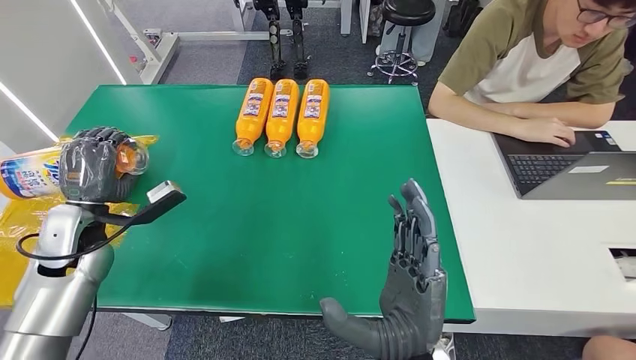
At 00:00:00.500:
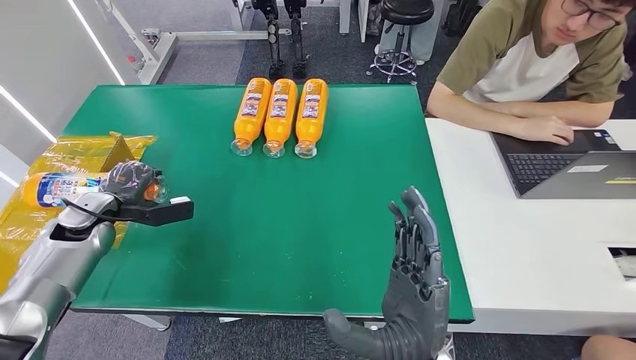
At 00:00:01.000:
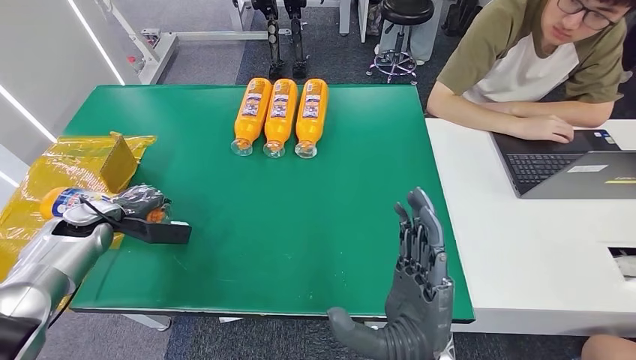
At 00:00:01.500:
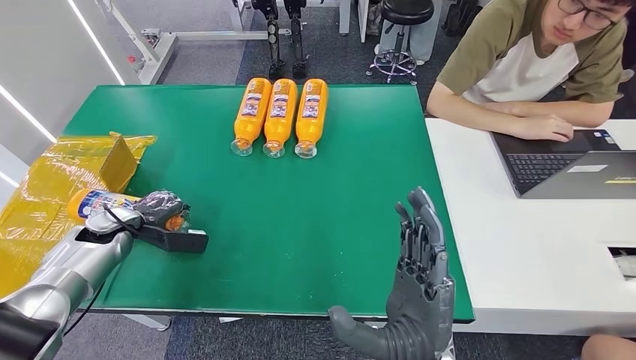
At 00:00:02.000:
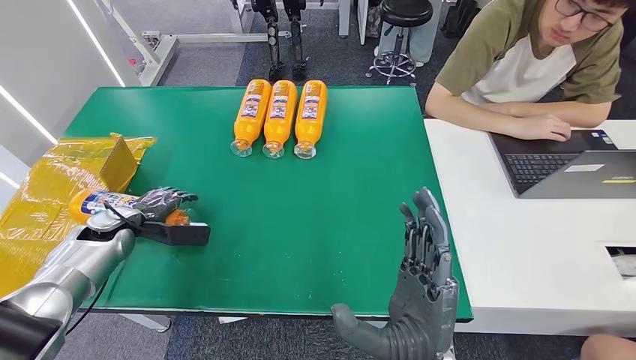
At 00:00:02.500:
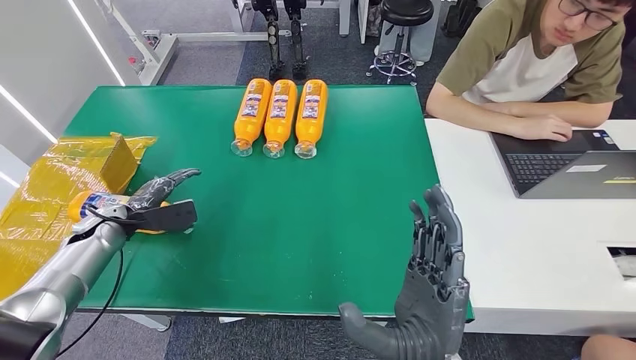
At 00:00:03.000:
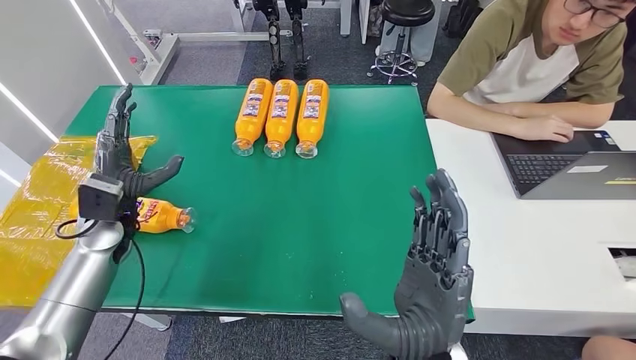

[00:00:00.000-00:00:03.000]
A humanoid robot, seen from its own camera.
Step, 00:00:00.000 to 00:00:03.000: Turn the bottle to the front side.
00:00:00.000 to 00:00:01.500: The left hand goes approximately 10 cm downward and to the left.
00:00:01.500 to 00:00:03.000: The left hand moves to the right and upward, roughly 10 cm.
